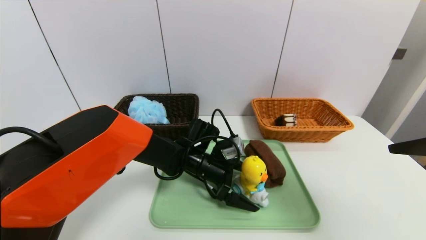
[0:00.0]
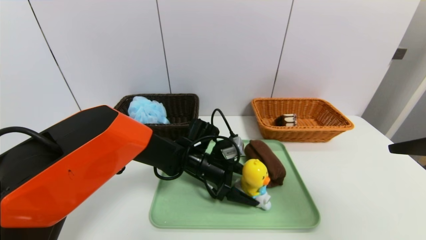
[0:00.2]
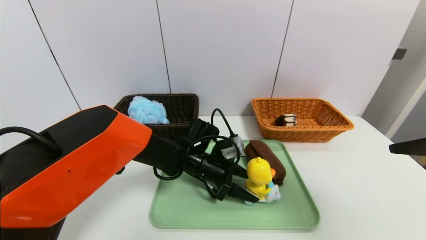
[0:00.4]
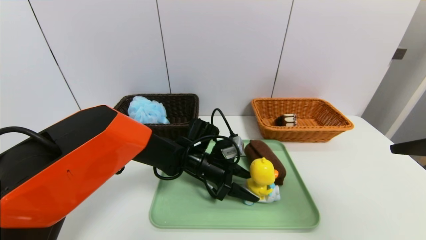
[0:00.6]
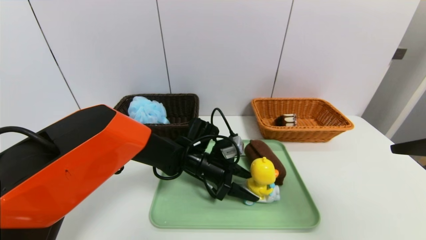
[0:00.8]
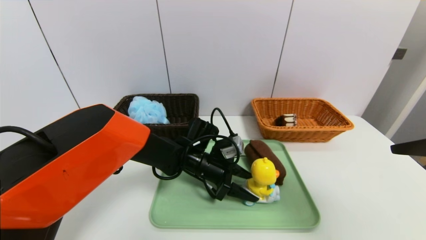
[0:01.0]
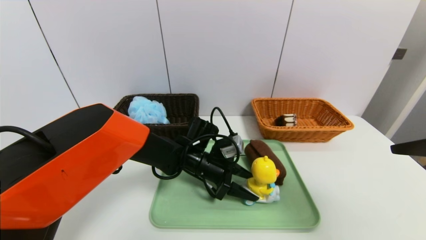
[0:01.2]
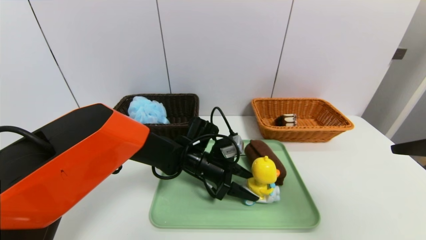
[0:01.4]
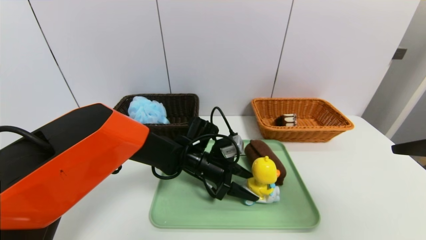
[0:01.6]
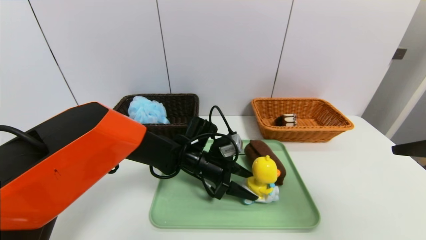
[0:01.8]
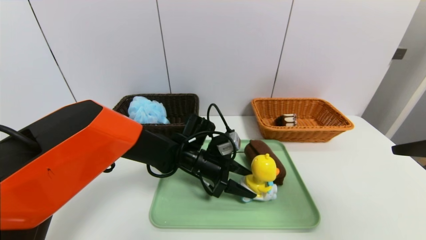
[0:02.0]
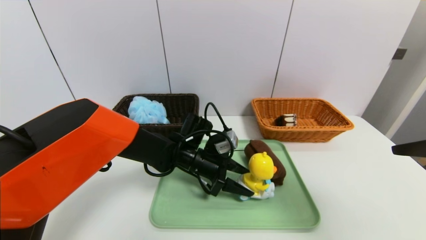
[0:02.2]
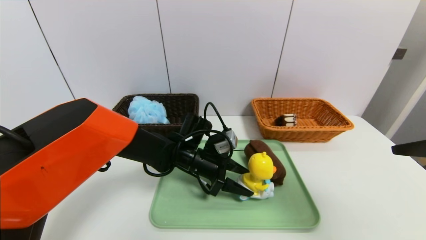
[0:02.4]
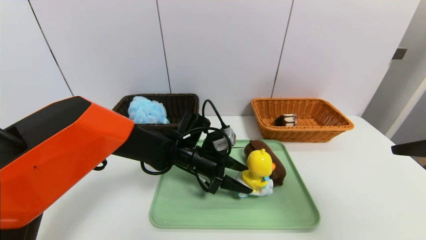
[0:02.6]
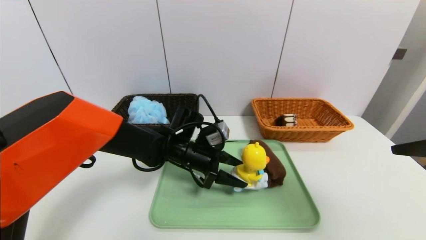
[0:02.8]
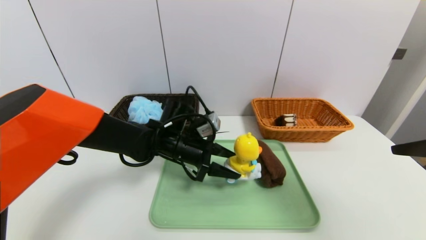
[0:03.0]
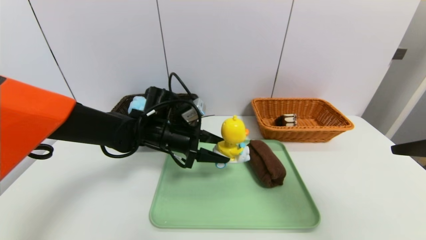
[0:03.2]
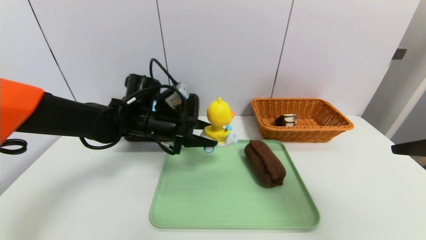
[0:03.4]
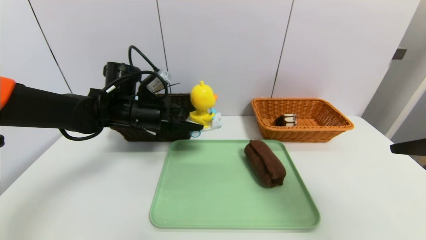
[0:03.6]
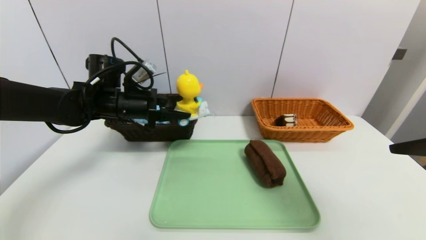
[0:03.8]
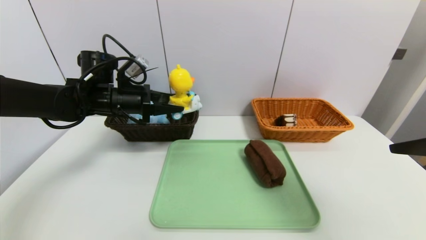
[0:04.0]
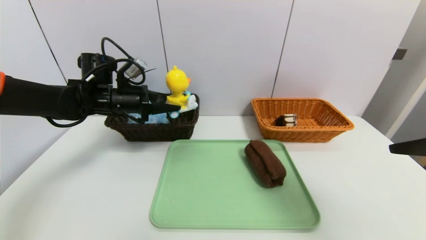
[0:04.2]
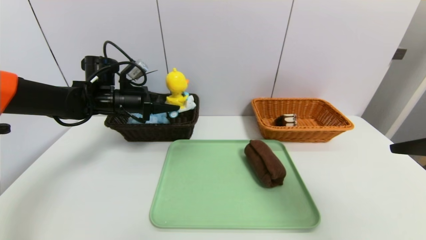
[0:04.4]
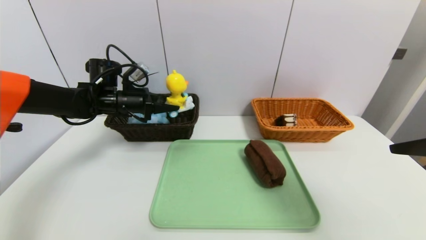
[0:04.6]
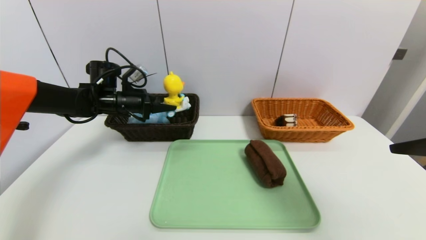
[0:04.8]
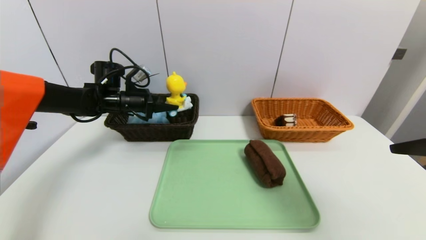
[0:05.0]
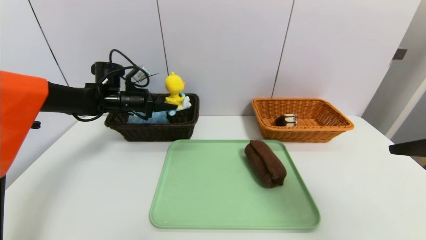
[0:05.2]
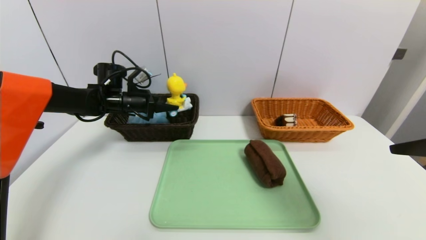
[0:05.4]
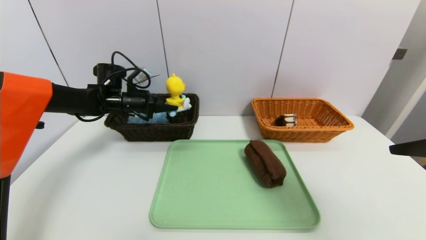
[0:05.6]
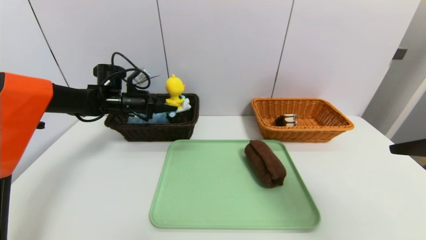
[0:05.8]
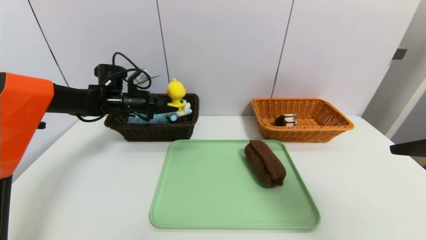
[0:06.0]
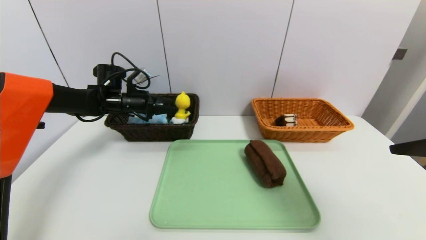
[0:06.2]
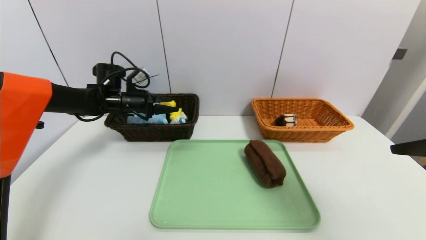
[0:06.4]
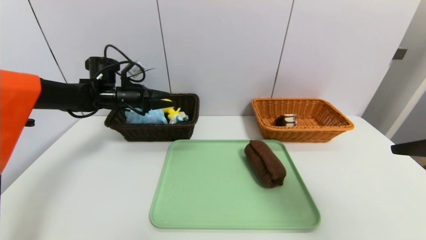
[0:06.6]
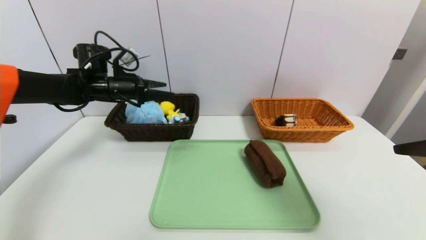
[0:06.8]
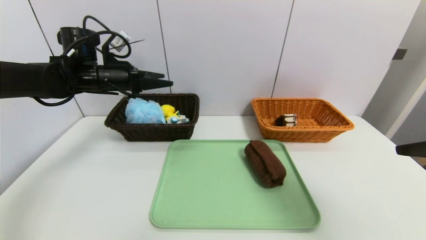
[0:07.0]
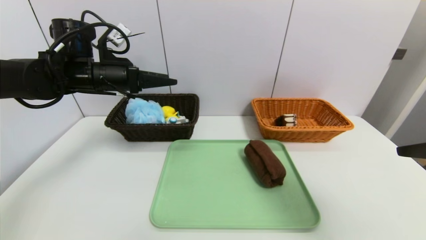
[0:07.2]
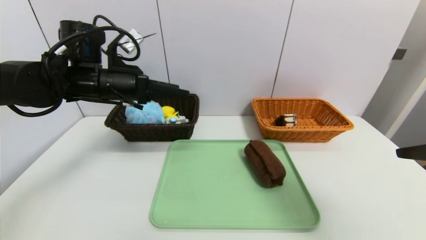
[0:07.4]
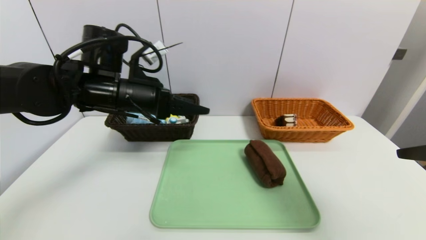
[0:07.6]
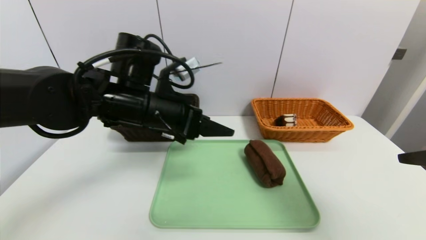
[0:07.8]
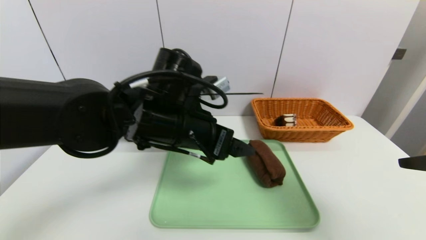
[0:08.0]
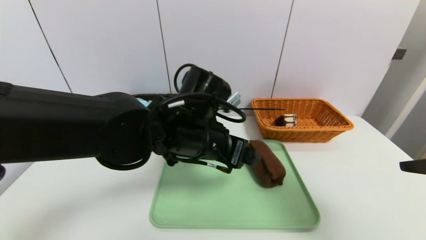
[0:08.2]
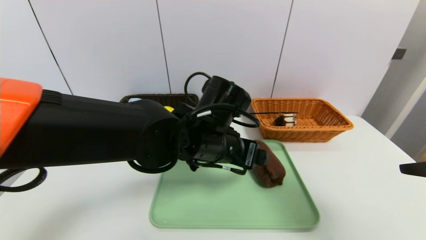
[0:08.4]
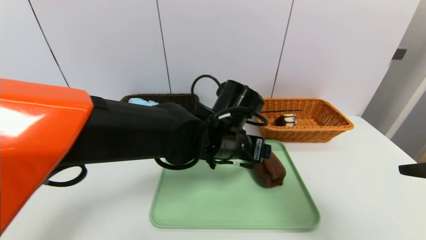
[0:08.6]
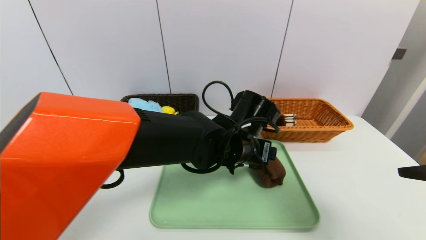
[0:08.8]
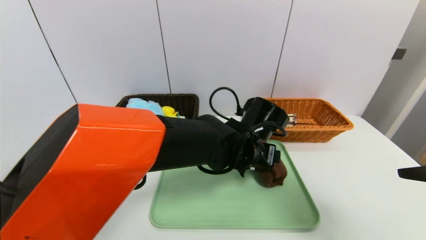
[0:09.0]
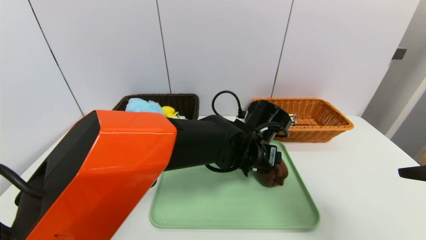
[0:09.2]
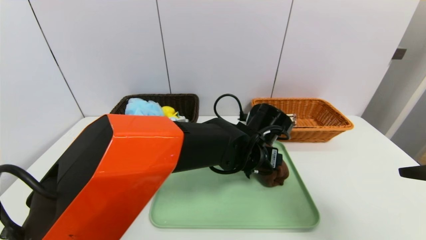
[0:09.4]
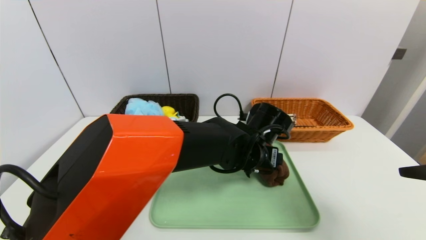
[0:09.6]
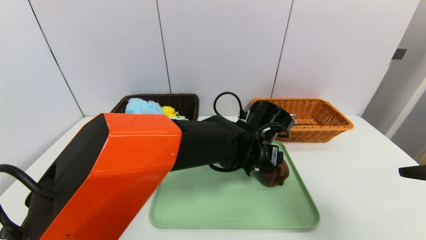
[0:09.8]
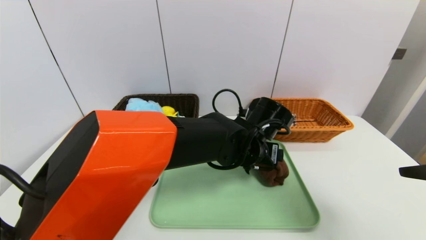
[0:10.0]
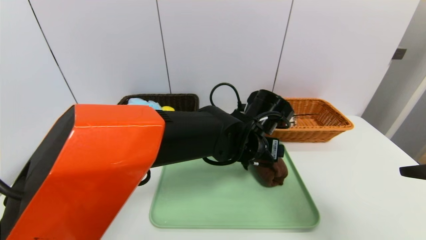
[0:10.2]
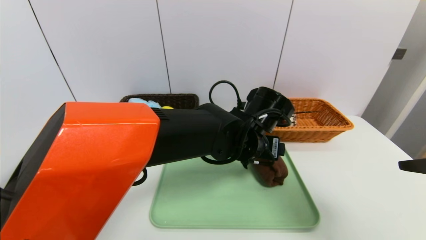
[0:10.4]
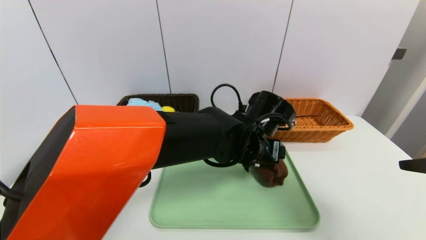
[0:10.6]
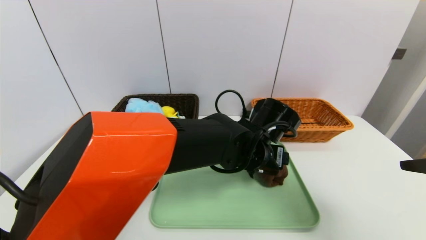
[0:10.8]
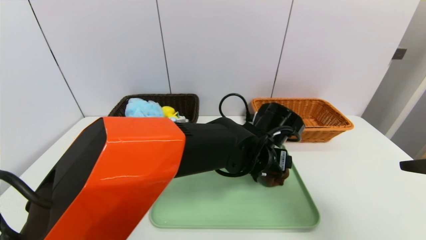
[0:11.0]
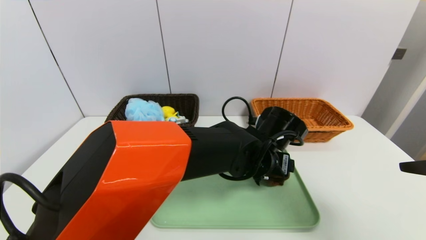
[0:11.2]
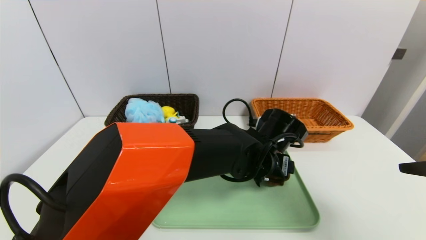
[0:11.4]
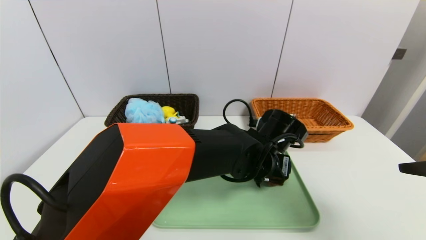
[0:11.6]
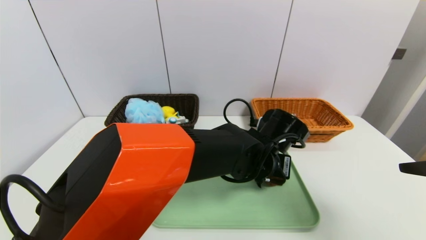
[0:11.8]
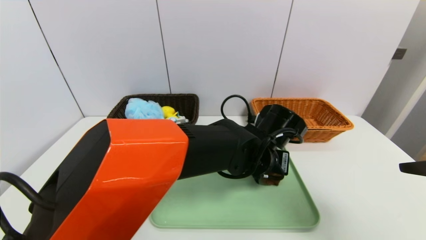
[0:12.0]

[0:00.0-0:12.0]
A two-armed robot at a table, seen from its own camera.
Task of the whole recording: place the food in the right basket with the right gripper, and place the non food items in the left basket with the left gripper.
Step, 0:00.0 to 0:06.4: Grasp the duck toys and put it in the left basket.
0:00.0 to 0:01.6: The left gripper closes its fingers.
0:01.6 to 0:03.0: The left gripper moves to the left and upward, roughly 10 cm.
0:03.0 to 0:04.4: The left gripper travels to the left, upward and forward by about 20 cm.
0:04.4 to 0:06.0: The left gripper changes place by roughly 5 cm.
0:06.0 to 0:07.6: The left gripper heads backward, to the right and upward, covering approximately 20 cm, and opens its fingers.
0:07.6 to 0:09.0: The left gripper moves to the right and downward, approximately 25 cm.
0:09.0 to 0:10.4: There are only small adjustments of the grippers.
0:10.4 to 0:12.0: The left gripper closes.

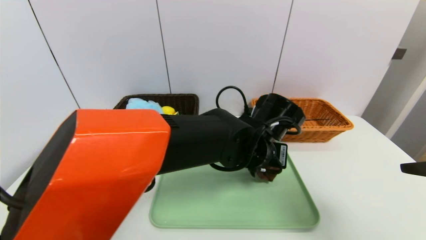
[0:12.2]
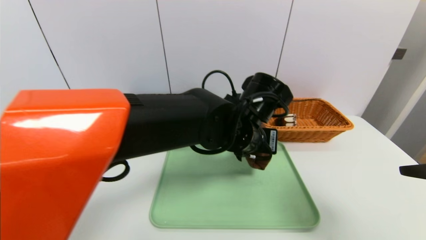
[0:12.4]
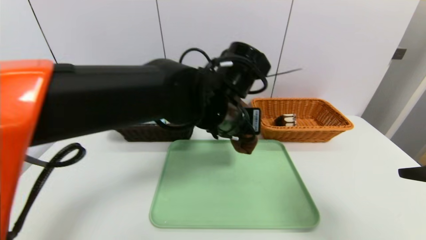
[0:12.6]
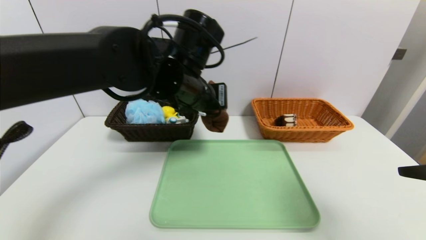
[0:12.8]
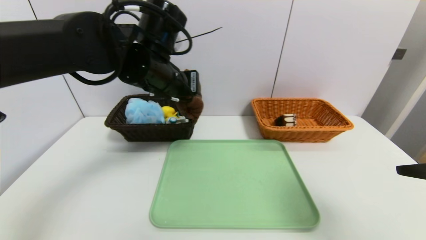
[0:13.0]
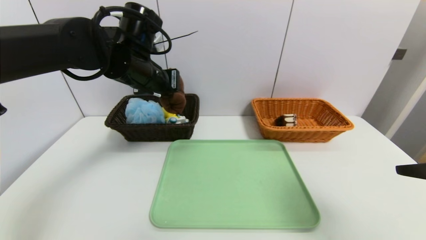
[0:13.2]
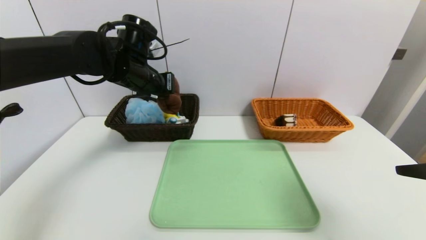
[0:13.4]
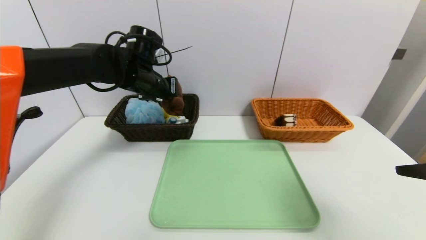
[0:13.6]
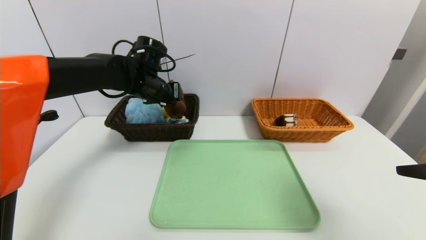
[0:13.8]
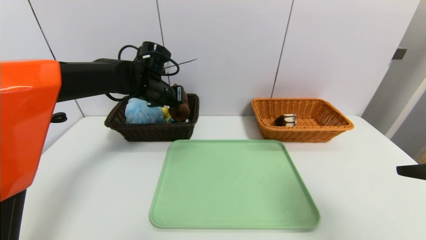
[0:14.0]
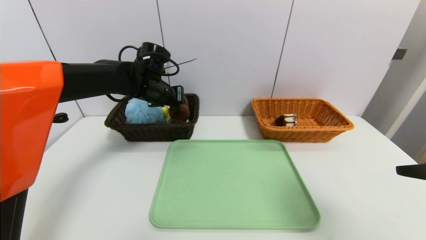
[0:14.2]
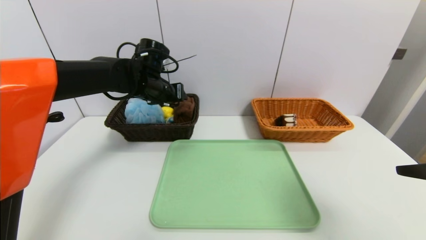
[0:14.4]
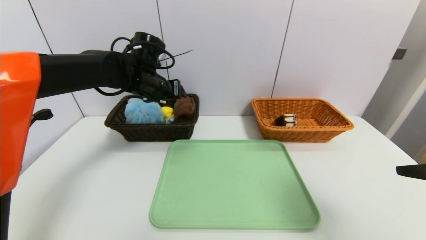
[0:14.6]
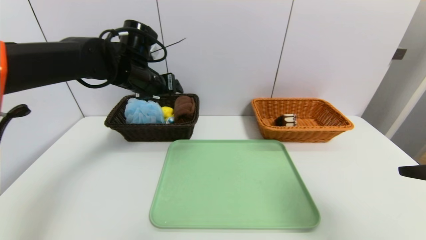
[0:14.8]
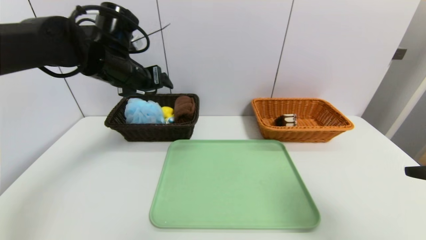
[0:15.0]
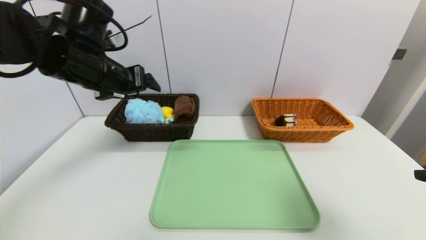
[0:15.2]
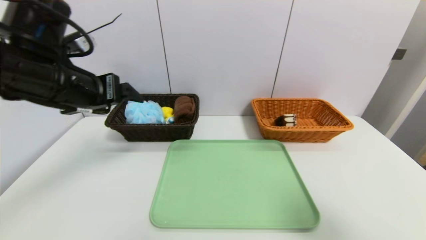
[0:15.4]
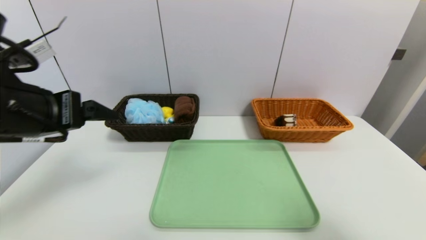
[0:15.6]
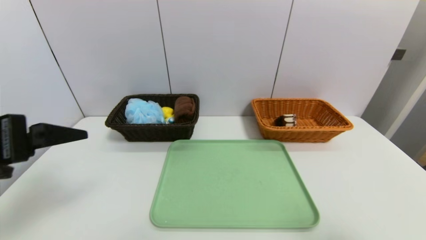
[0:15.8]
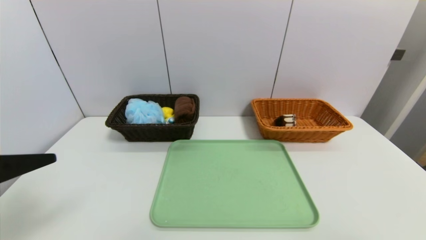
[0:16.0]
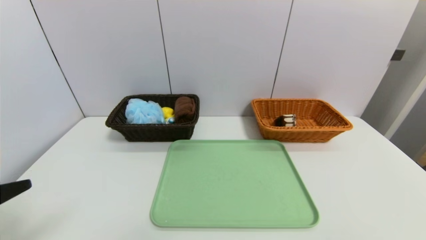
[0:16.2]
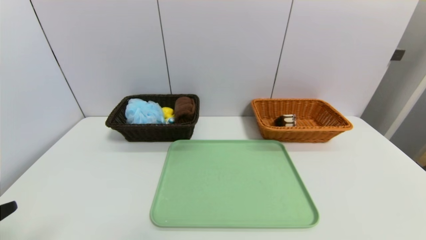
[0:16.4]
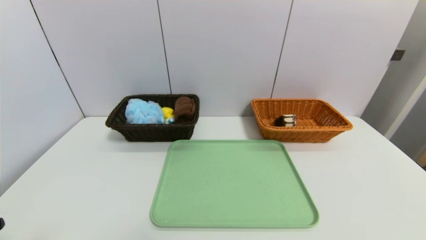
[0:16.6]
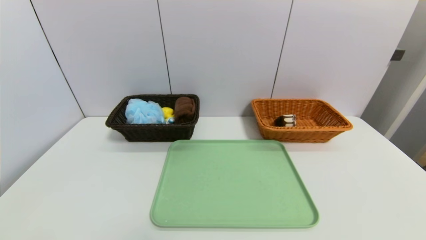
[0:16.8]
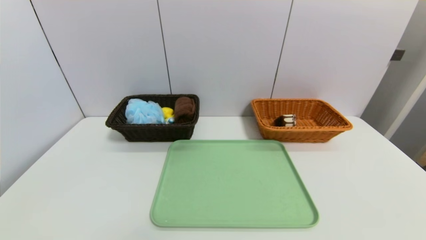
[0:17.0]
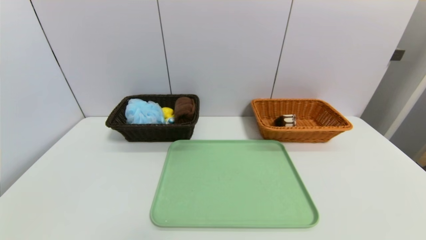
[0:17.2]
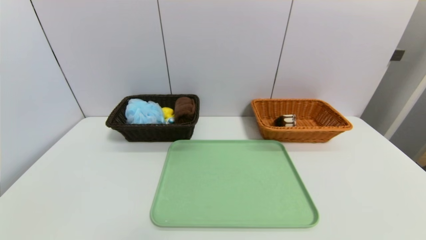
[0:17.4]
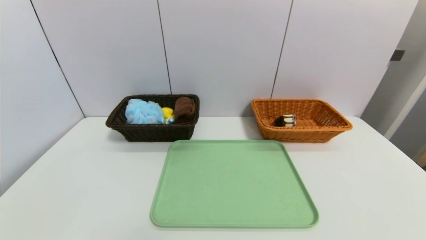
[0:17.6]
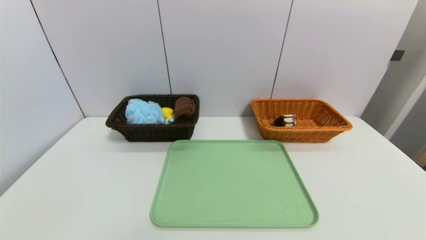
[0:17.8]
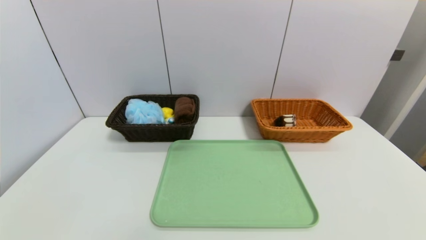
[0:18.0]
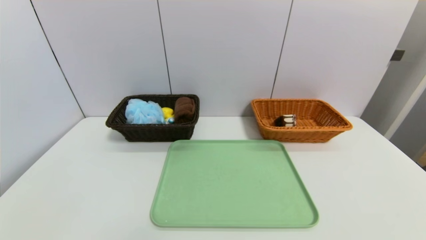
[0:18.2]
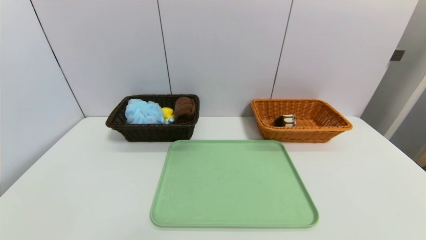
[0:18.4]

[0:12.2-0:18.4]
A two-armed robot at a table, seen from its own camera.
Task of the whole recording: place the food in the right basket with the right gripper, and place the non food items in the left basket with the left gripper.
Step, 0:12.2 to 0:14.4: Grasp the brown towel and put it in the left basket.
0:12.2 to 0:13.8: The left gripper travels to the left and forward by roughly 25 cm.
0:13.8 to 0:15.4: The left gripper travels backward and to the left by about 20 cm, and opens its fingers.
0:15.4 to 0:16.8: The right gripper travels backward by approximately 15 cm, while the left gripper goes some 25 cm backward.
